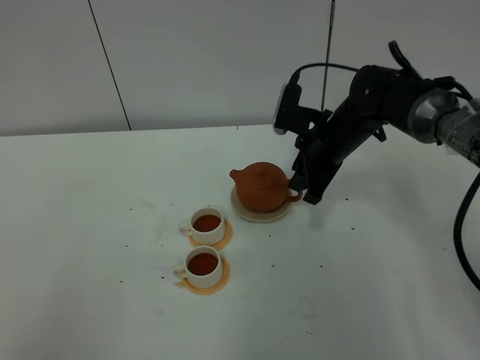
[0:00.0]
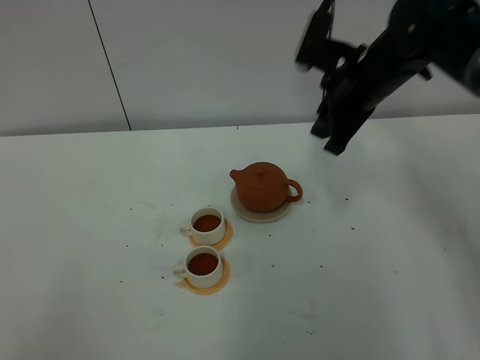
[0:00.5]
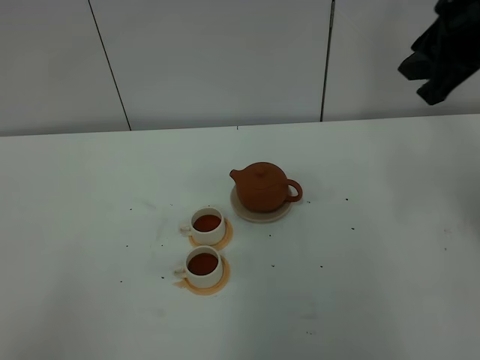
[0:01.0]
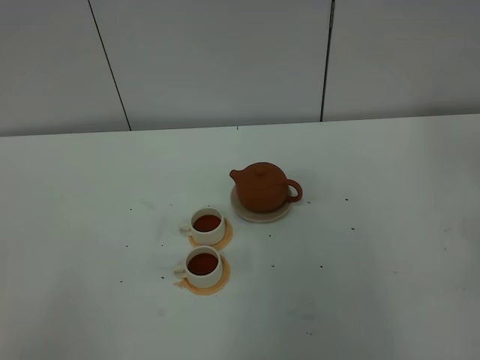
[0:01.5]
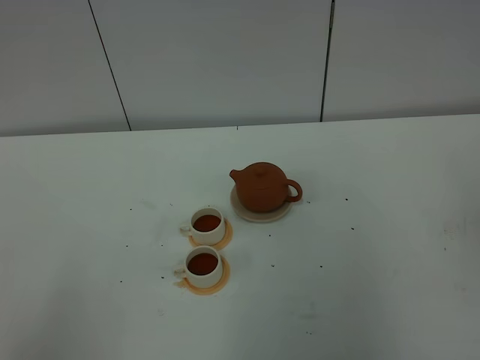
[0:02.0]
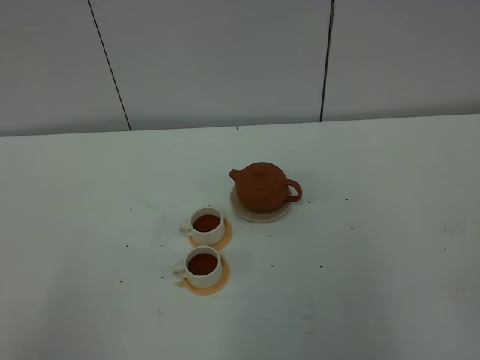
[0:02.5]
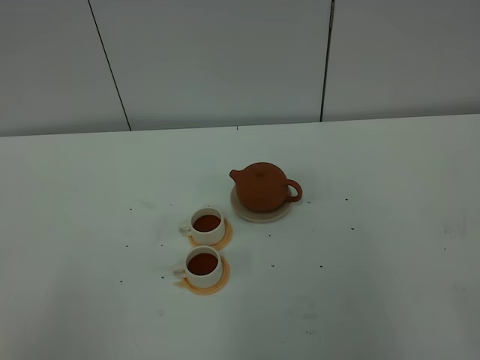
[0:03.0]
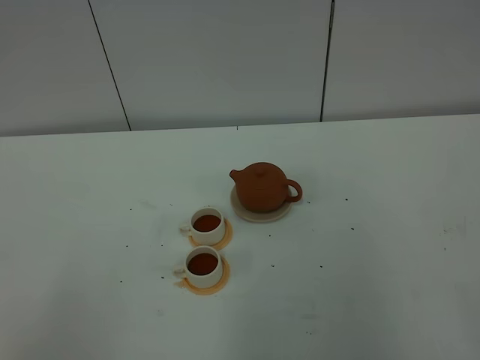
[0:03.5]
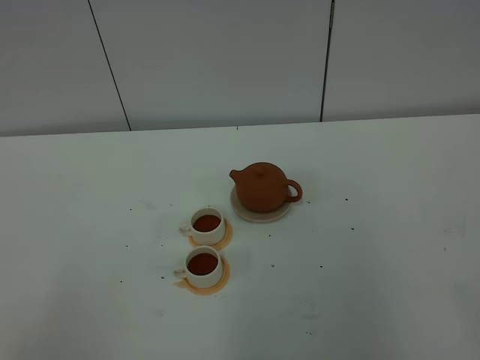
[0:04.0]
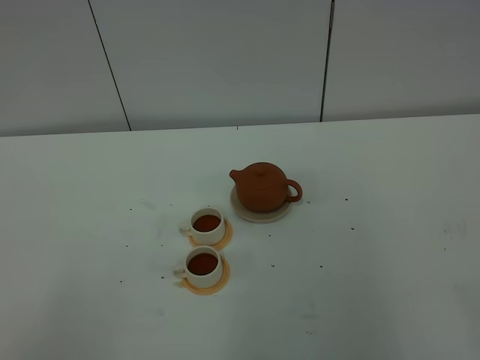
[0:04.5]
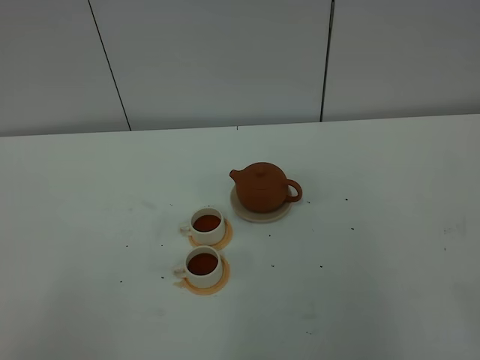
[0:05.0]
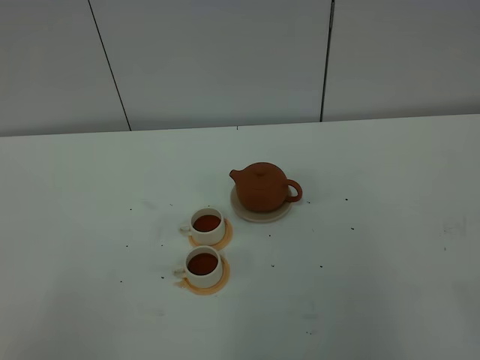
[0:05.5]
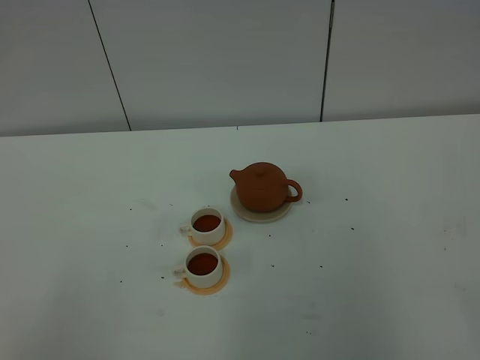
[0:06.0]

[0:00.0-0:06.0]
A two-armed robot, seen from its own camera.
Task of the whole recording: grasp the brown teapot and pour the tea into the two white teacups one by one, put the brown teapot back in its original place.
0:00.0 to 0:02.0: The right gripper travels backward, to the right and upward by some 50 cm.
0:04.0 to 0:06.0: Both grippers stay put.
